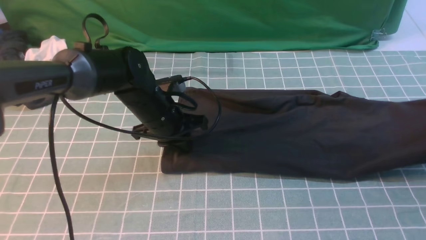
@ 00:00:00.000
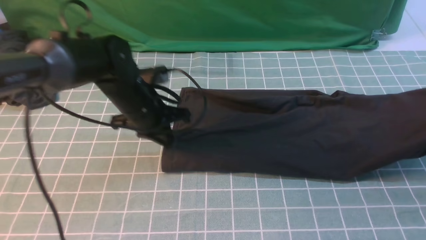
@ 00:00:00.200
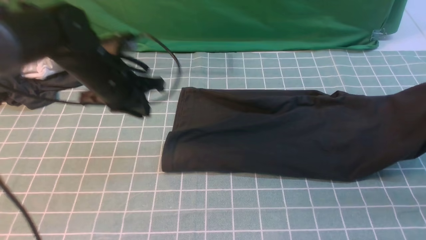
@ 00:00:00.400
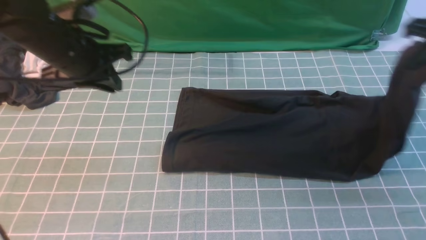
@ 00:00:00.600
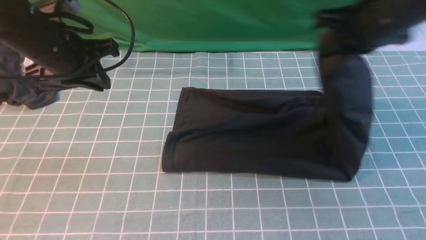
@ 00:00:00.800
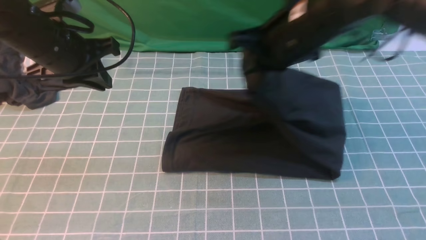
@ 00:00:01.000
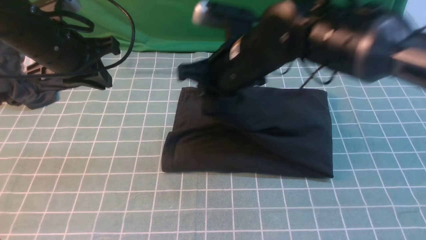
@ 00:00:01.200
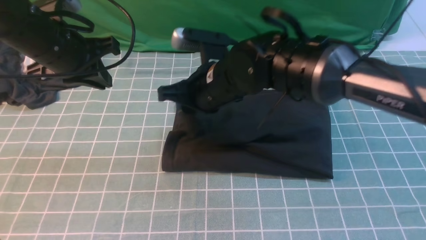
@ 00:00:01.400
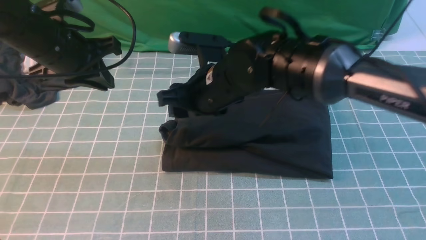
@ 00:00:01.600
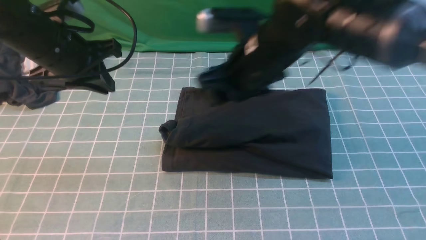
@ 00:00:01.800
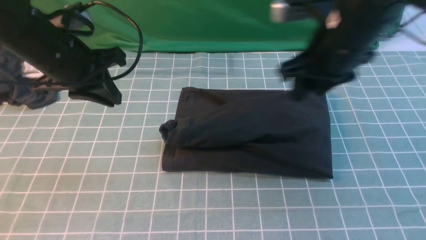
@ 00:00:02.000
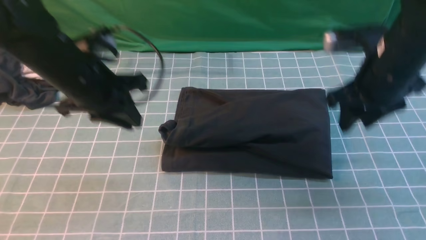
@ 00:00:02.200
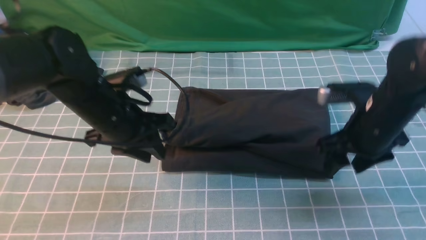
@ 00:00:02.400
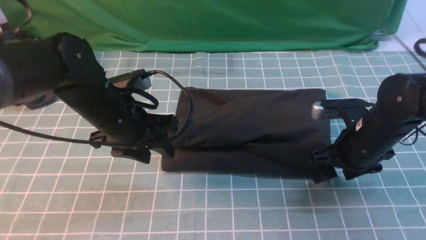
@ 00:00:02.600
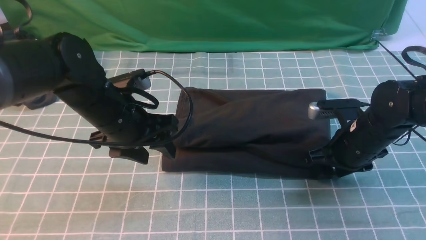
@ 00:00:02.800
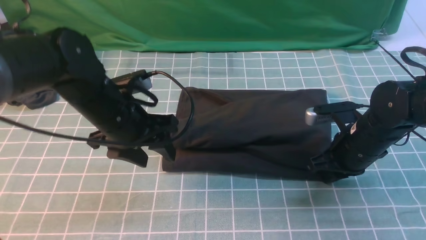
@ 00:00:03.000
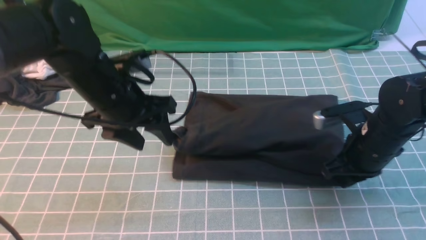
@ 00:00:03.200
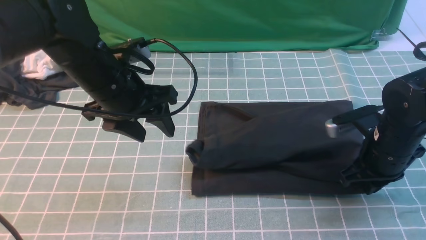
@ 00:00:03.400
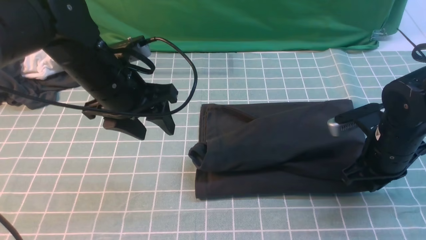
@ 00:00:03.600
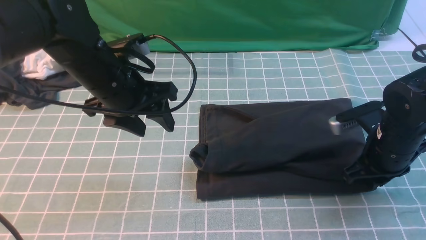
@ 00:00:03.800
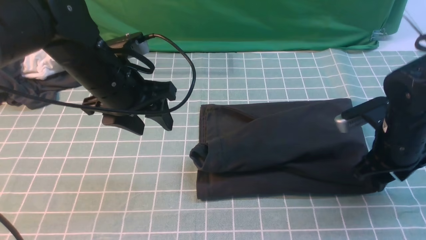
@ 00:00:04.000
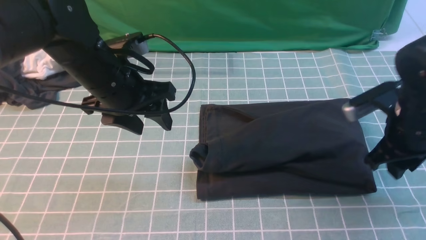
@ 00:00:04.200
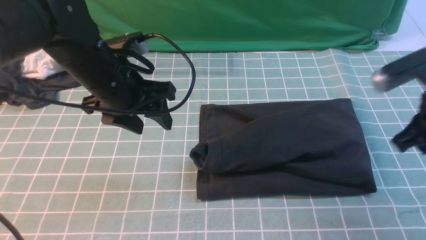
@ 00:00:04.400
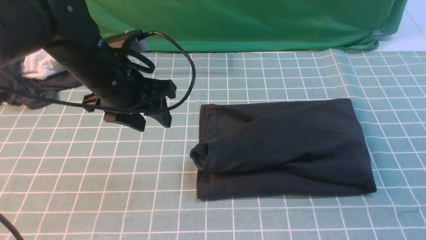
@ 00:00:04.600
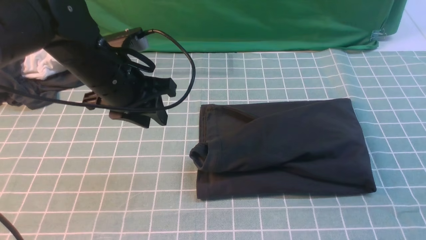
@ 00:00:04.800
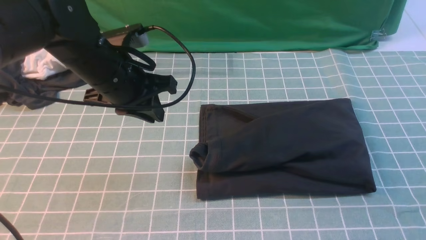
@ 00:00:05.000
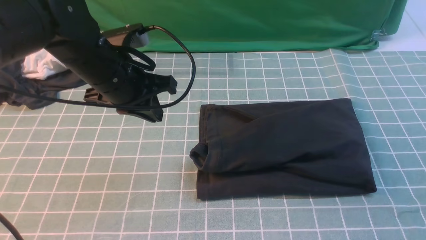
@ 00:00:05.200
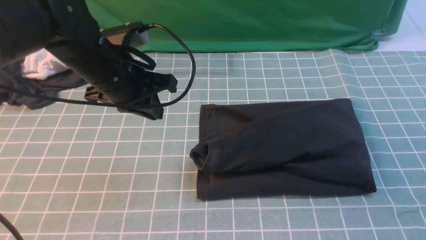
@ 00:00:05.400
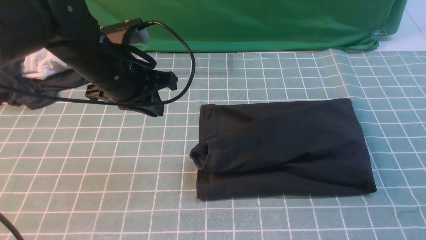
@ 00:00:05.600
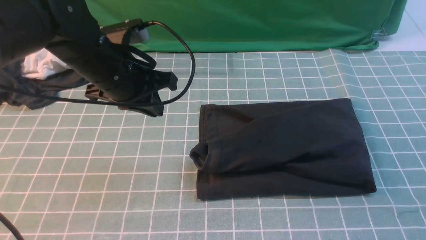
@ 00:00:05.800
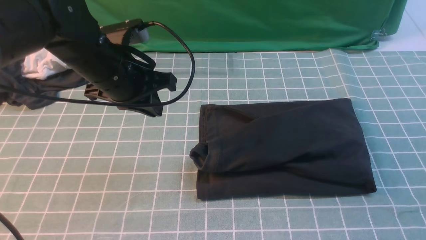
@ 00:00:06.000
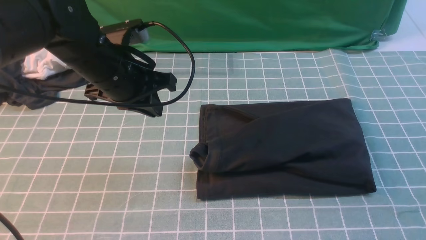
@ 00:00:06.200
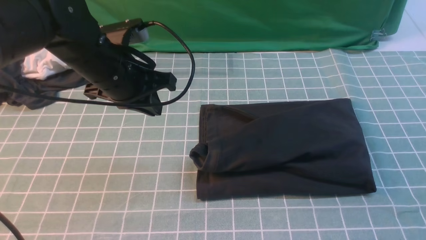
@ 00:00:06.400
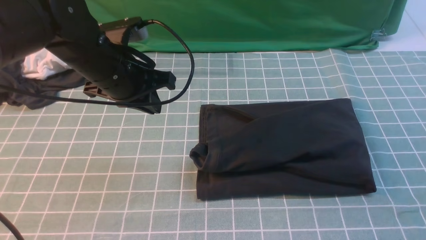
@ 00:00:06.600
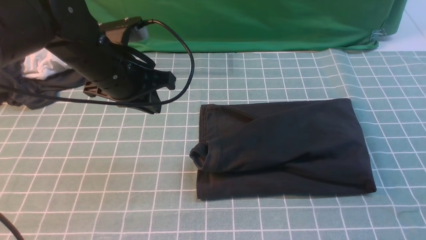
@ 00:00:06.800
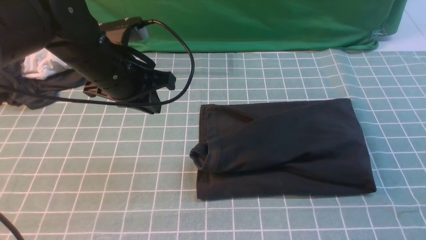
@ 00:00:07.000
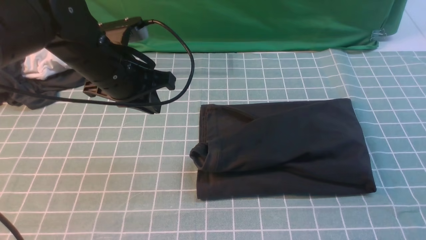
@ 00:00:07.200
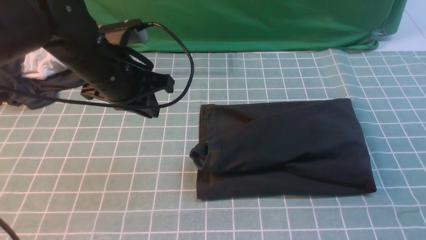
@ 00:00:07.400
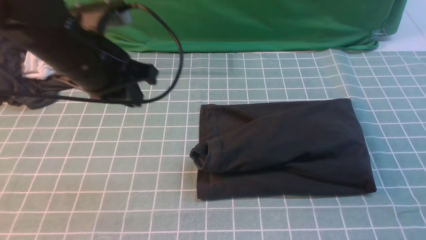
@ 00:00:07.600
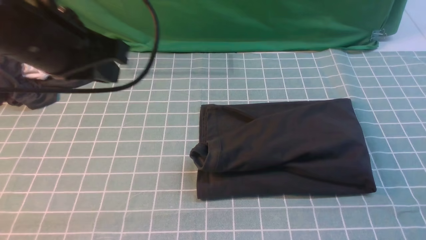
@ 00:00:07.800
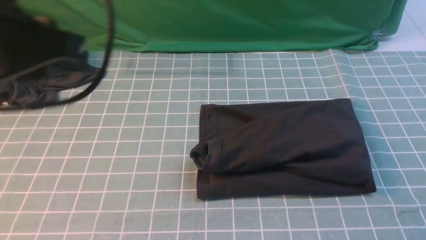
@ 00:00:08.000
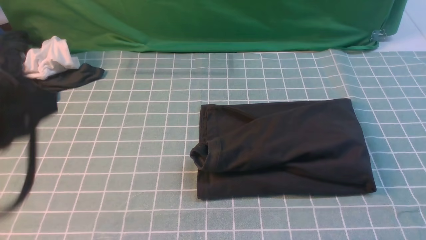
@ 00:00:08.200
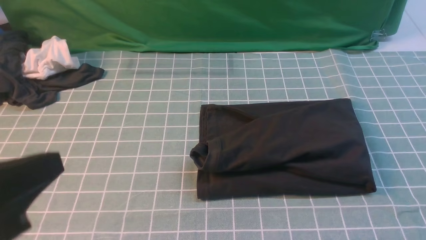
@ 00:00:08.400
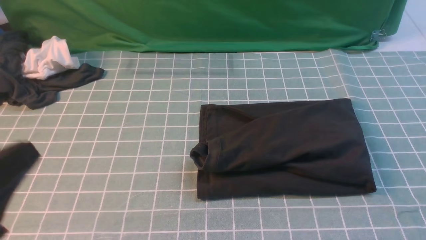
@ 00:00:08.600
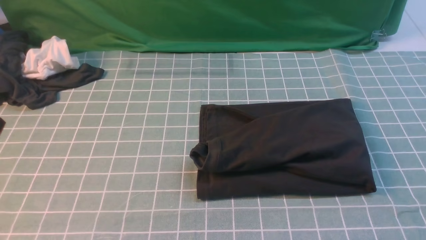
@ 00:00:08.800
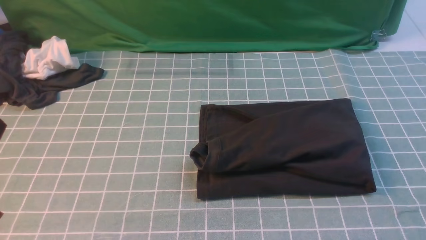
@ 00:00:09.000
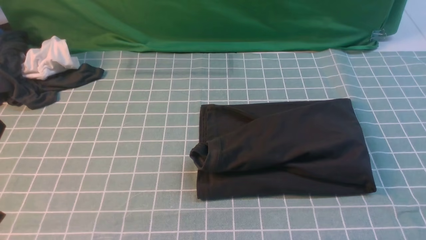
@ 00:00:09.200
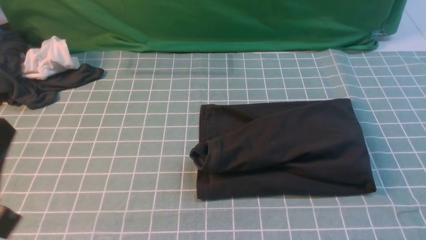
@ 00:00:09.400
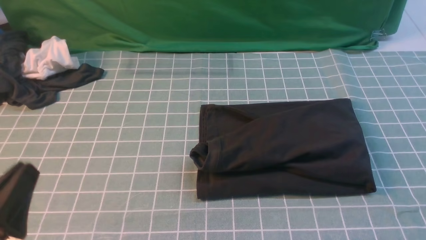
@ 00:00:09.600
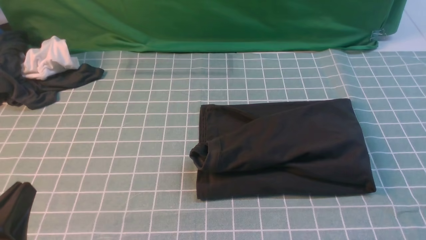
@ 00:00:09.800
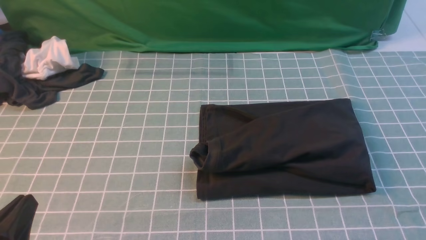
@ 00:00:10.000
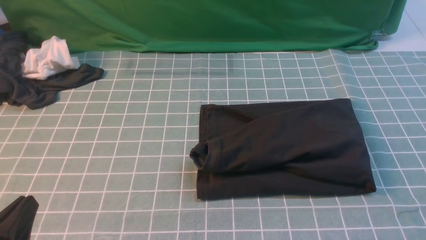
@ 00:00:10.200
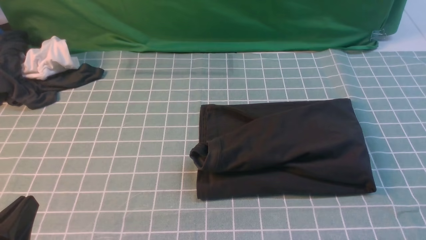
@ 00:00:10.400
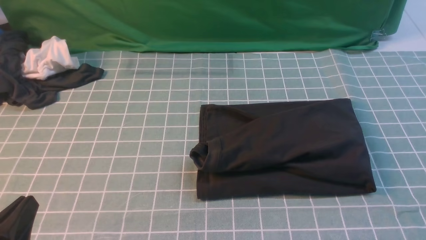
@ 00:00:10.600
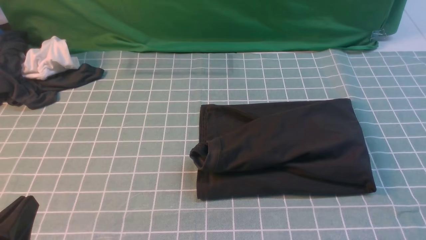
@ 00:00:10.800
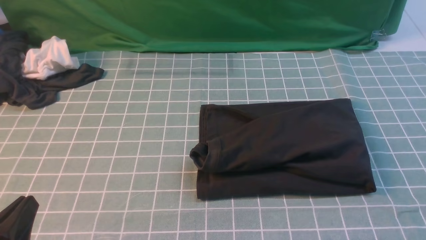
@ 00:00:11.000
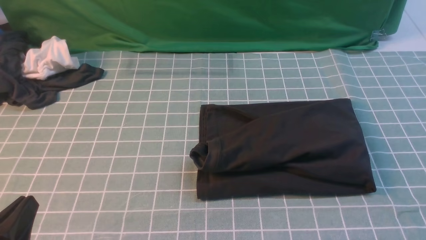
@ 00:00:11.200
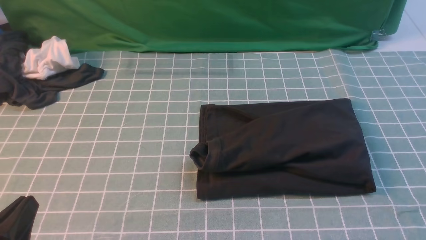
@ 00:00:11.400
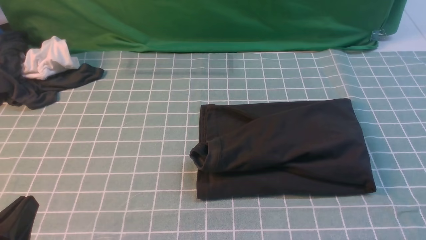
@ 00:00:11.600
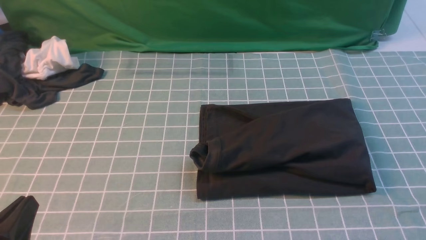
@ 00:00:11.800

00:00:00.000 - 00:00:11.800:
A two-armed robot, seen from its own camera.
Step, 00:00:00.000 - 00:00:01.800: use the right arm to drag the right edge of the fabric to the left and folds it over the left edge.
00:00:00.000 - 00:00:01.400: The right gripper moves to the left, some 40 cm, and opens. Meanwhile the left gripper is displaced upward and to the left by about 15 cm.
00:00:01.400 - 00:00:03.000: The left gripper is displaced to the right and downward by some 10 cm, and opens its fingers. Meanwhile the right gripper heads to the right and downward, covering approximately 25 cm, and opens and closes again.
00:00:03.000 - 00:00:04.400: The right gripper heads upward and backward, covering about 15 cm.
00:00:04.400 - 00:00:06.000: The left gripper closes; the right gripper is displaced backward by some 15 cm.
00:00:06.000 - 00:00:07.400: The right gripper travels downward by some 15 cm.
00:00:07.400 - 00:00:08.800: The left gripper heads backward, covering some 25 cm.
00:00:08.800 - 00:00:10.400: The left gripper travels downward by approximately 10 cm.
00:00:10.400 - 00:00:11.800: Neither gripper changes place.
